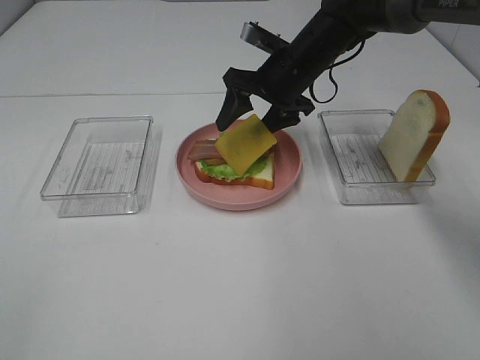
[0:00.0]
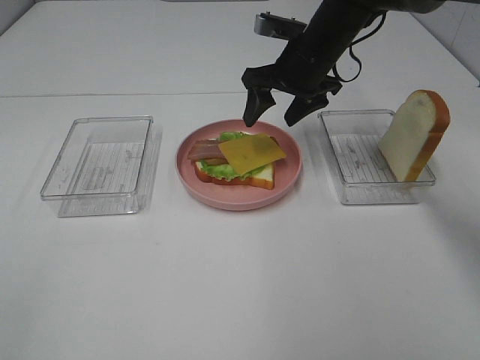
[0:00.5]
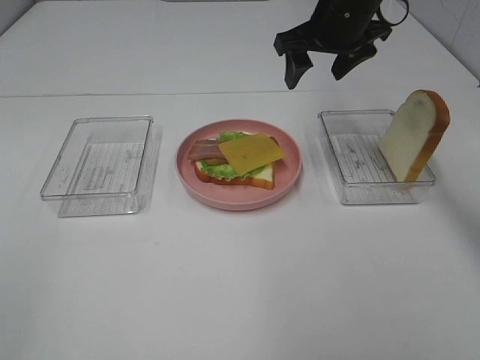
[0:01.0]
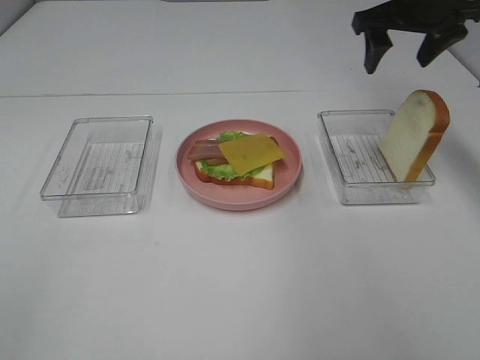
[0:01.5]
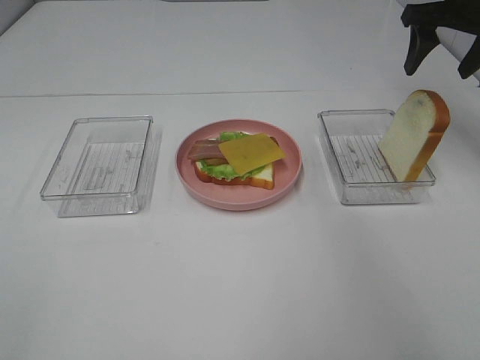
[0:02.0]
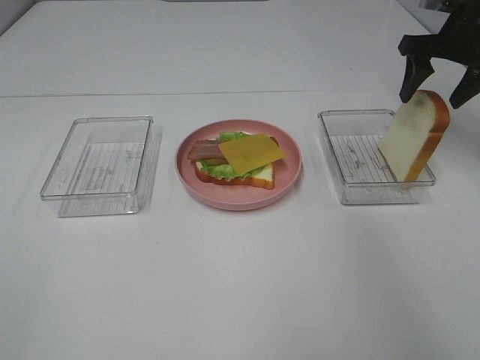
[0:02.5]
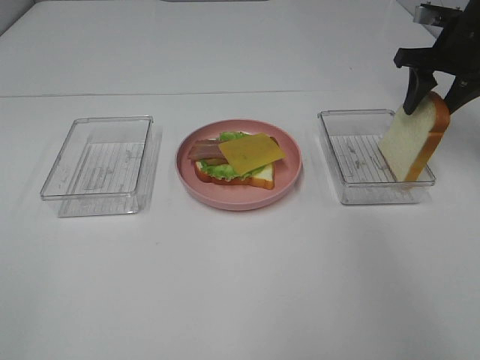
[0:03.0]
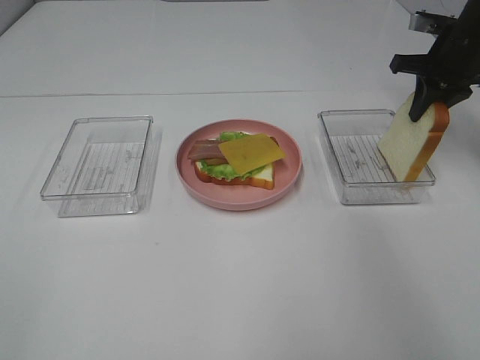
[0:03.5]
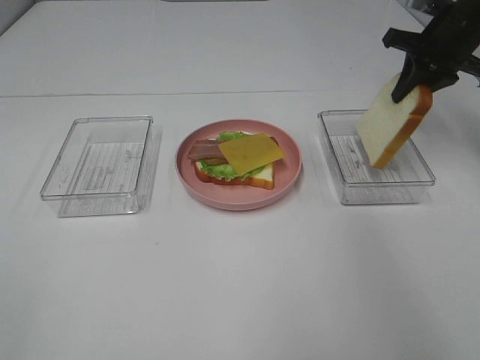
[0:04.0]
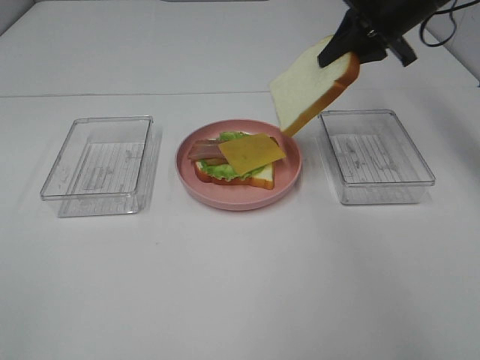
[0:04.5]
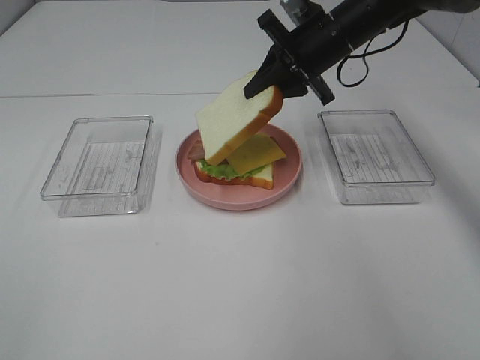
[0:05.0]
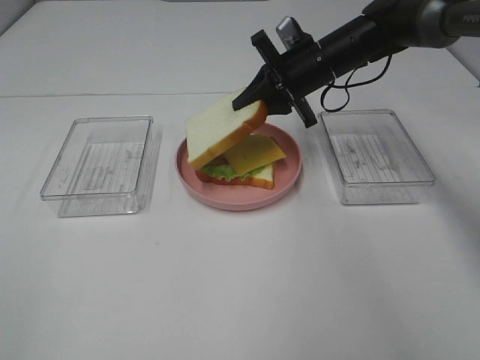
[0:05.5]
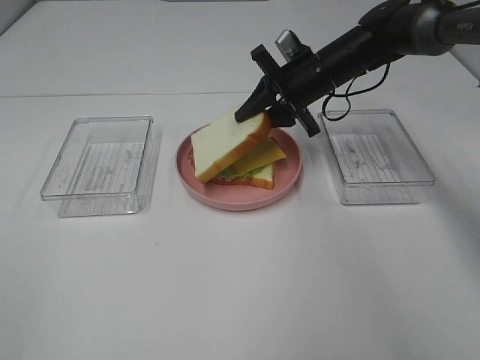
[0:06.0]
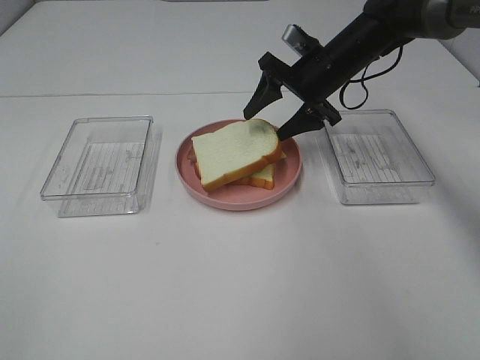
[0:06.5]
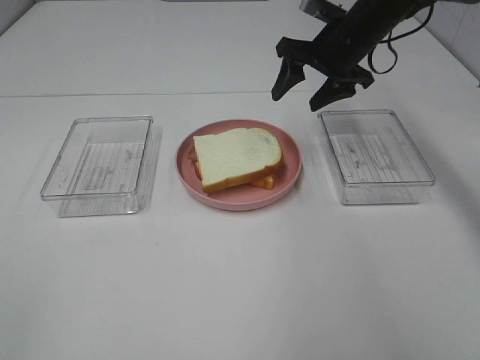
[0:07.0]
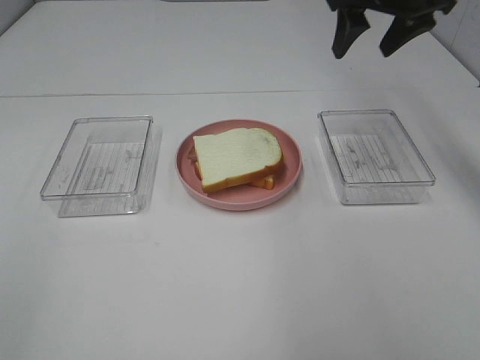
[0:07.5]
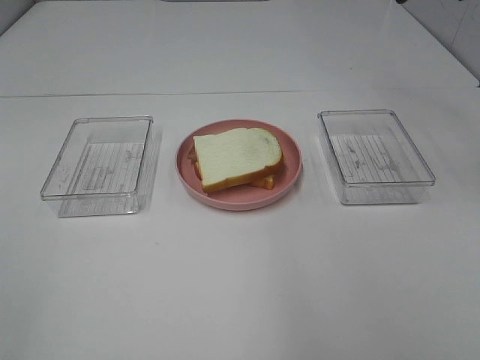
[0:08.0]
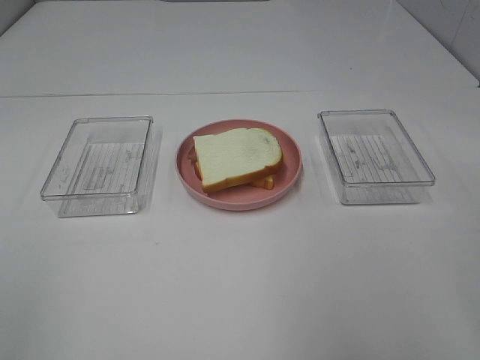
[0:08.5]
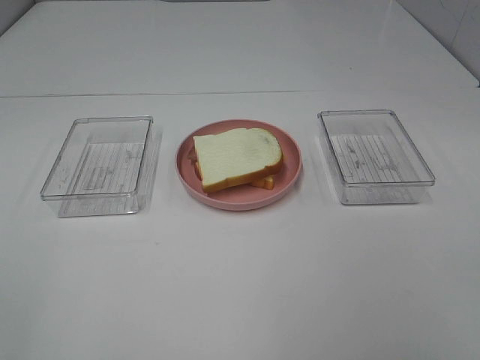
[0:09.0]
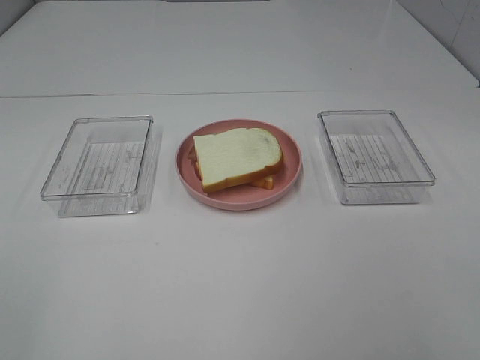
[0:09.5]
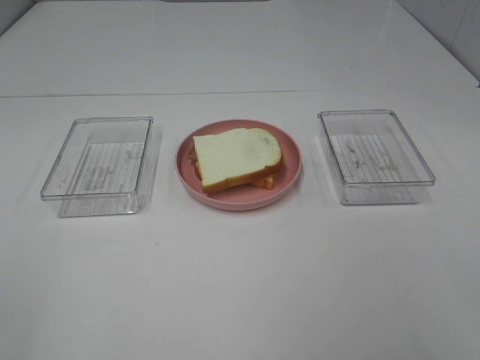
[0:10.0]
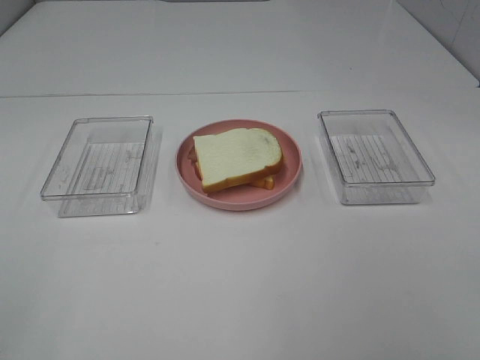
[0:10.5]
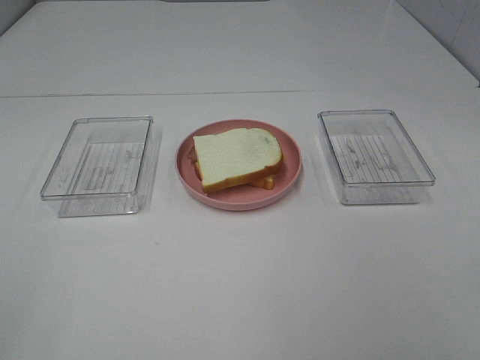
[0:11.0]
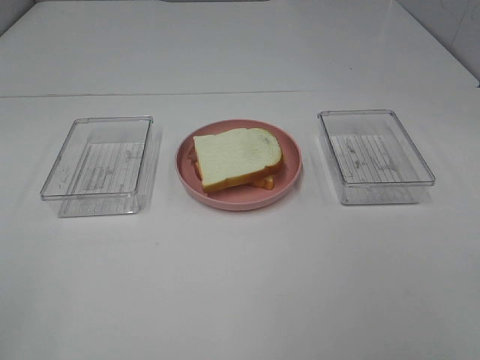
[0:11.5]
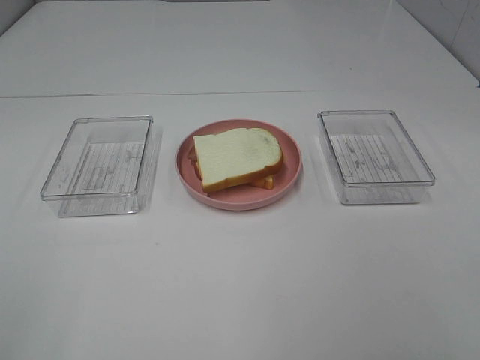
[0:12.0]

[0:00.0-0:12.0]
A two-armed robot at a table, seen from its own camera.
Task of the whole recording: Make sandwiches.
Step, 0:01.0 to 0:03.5: Right hand:grab the bread slice.
Step, 0:04.0 to 0:06.5: Right hand:place the bread slice on the cheese slice.
0:00.0 to 0:02.0: The right gripper moves to the right and upward, roughly 25 cm.
0:02.0 to 0:04.0: The right gripper closes up.
0:04.0 to 0:06.0: The right gripper travels to the left and downward by about 20 cm.
0:06.0 to 0:08.0: The right gripper travels upward and backward by roughly 30 cm, and opens up.

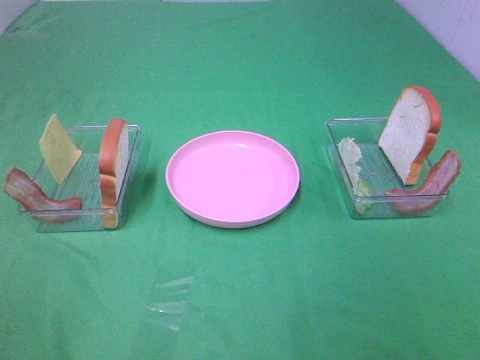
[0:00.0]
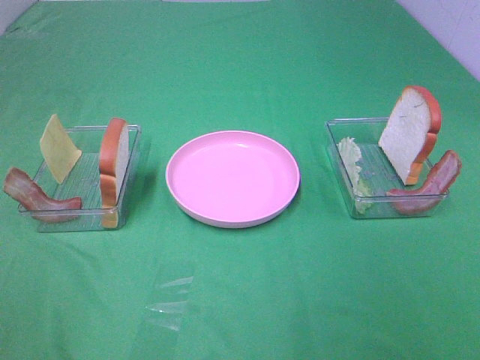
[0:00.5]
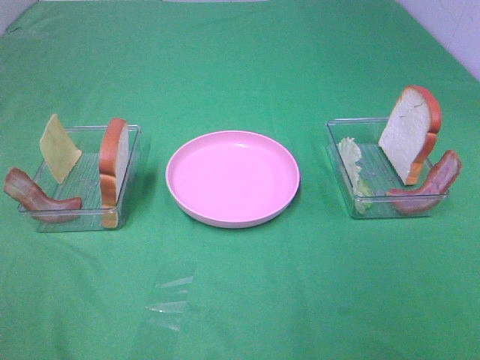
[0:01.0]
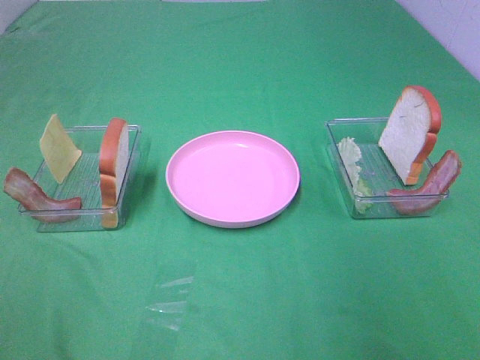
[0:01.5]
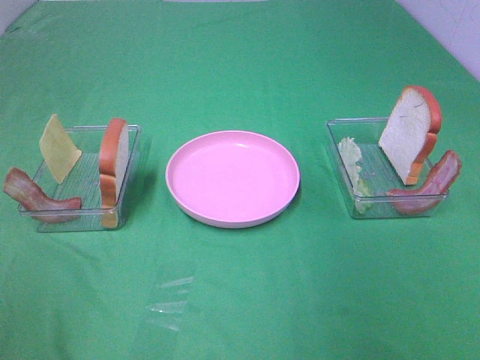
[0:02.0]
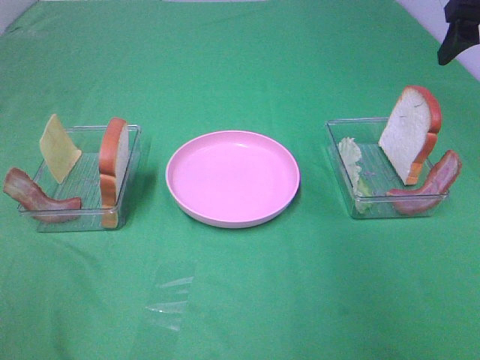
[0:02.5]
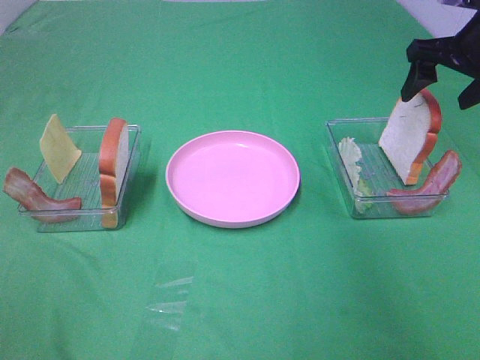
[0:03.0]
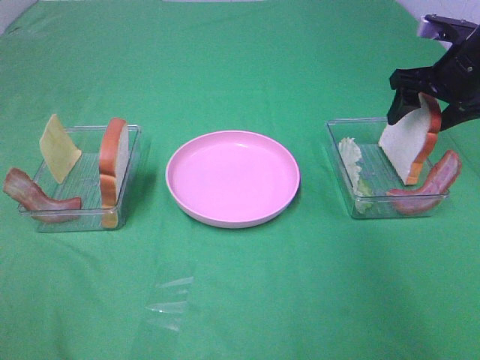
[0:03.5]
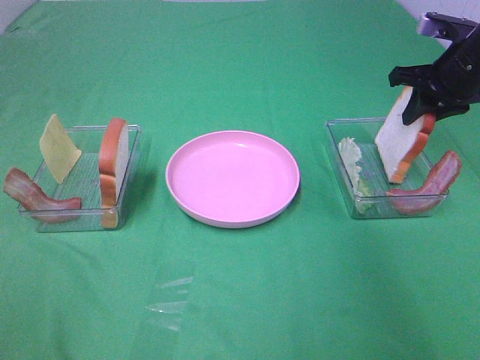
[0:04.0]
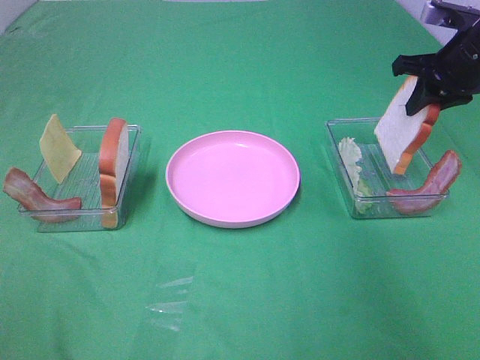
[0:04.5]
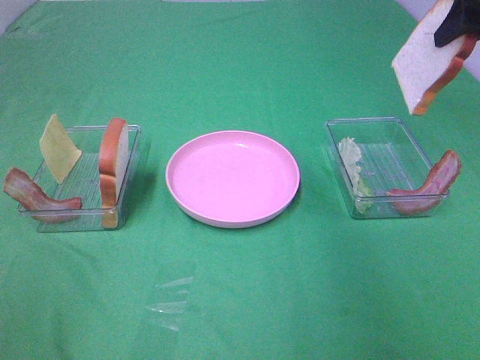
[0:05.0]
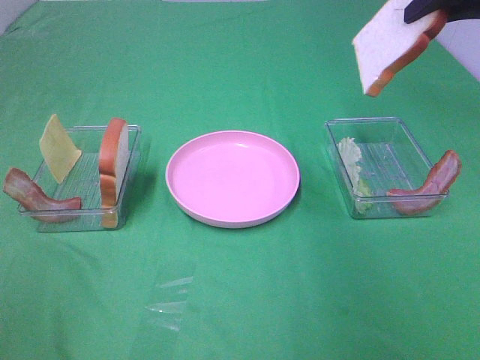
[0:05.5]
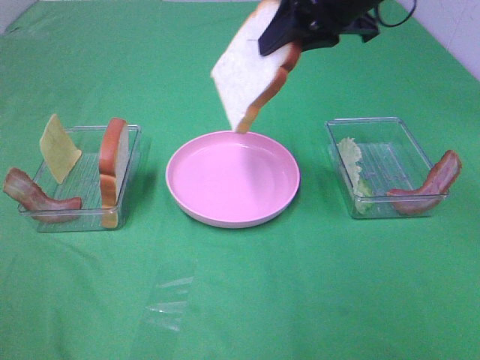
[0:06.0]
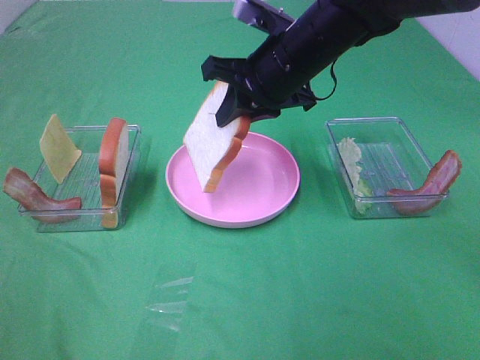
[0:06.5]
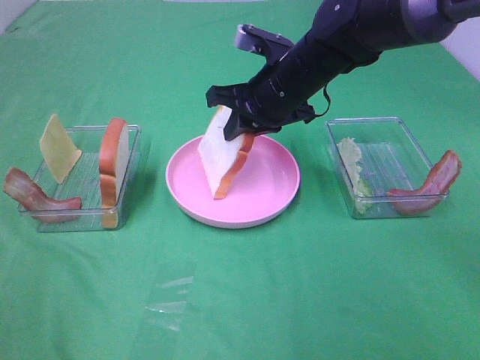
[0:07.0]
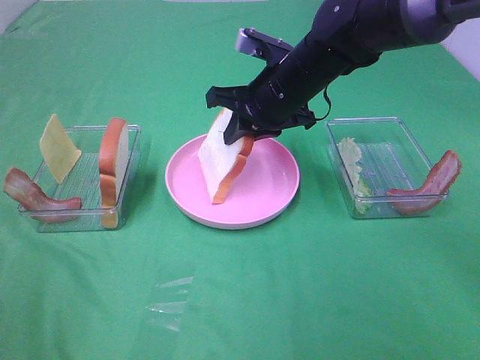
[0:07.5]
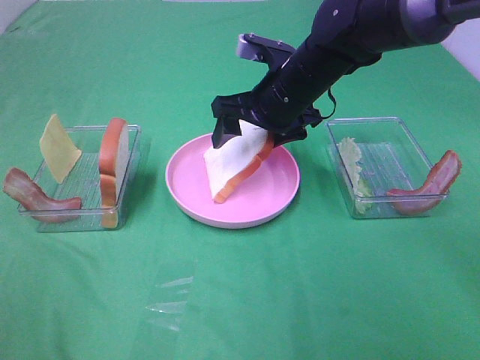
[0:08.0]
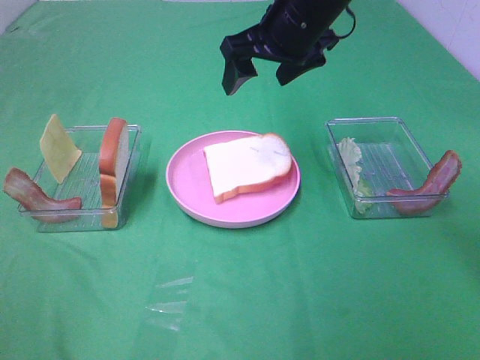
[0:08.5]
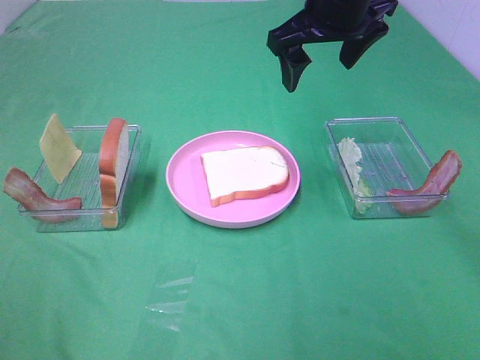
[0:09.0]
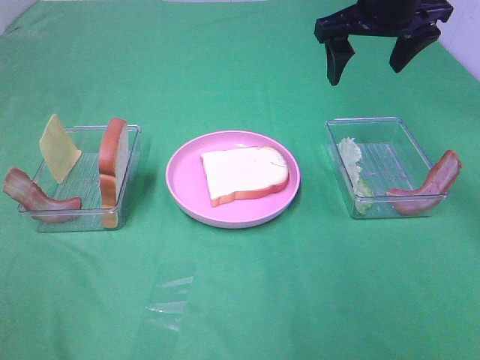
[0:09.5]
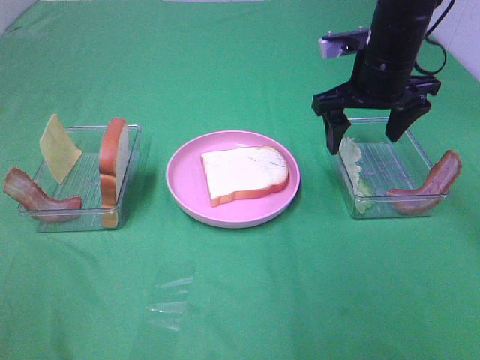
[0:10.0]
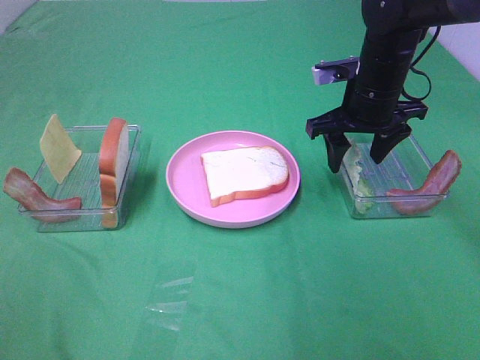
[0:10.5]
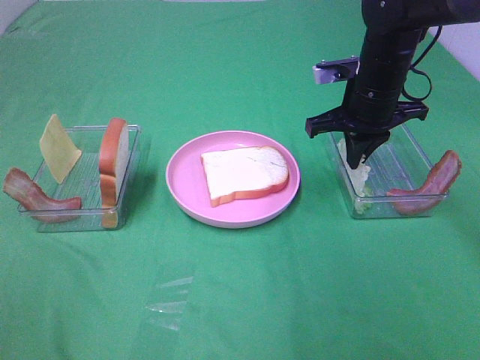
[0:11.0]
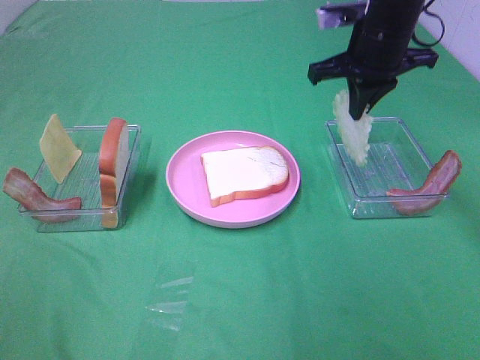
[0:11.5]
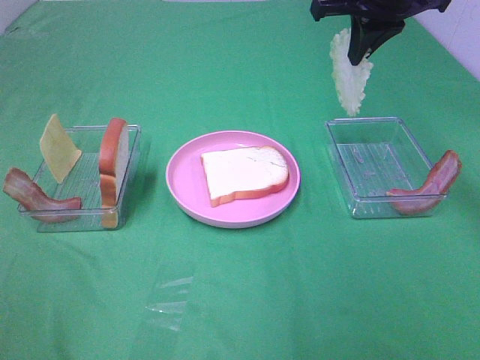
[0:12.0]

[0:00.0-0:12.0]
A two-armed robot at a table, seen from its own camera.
Task of the whole recording: Make sandwiches.
Step, 0:00.0 to 0:04.0: Right hand:grab the bread slice.
Step, 0:04.5 to 0:08.5: Right hand:place the bread slice on the plate.
Step, 0:09.0 to 0:11.0: Right hand:grab the lettuce slice.
0:02.0 to 0:04.0: The right gripper shifts some 20 cm forward and downward, and closes.
0:04.0 to 0:06.0: The right gripper travels to the left and upward by roughly 20 cm.
0:06.0 to 0:08.0: The right gripper moves downward, about 15 cm, and opens up.
0:08.0 to 0:10.0: The right gripper travels to the right by roughly 10 cm, and travels upward and back again, roughly 10 cm each way.
0:10.0 to 0:12.0: The right gripper goes about 10 cm upward, and closes its fingers.

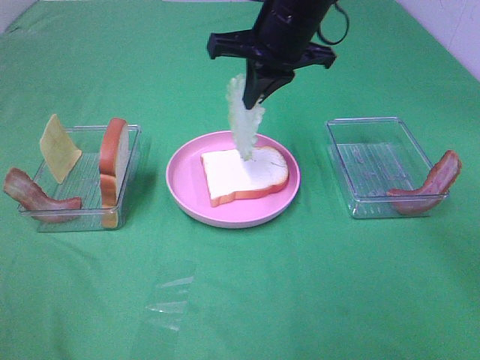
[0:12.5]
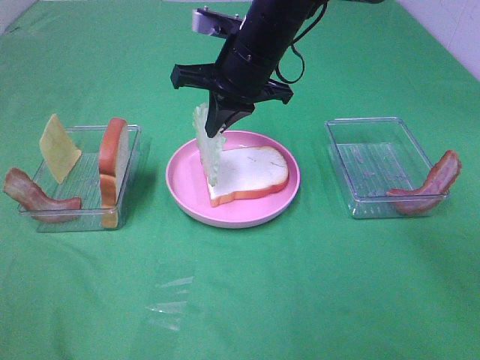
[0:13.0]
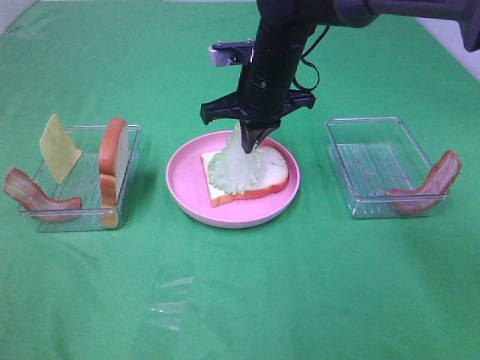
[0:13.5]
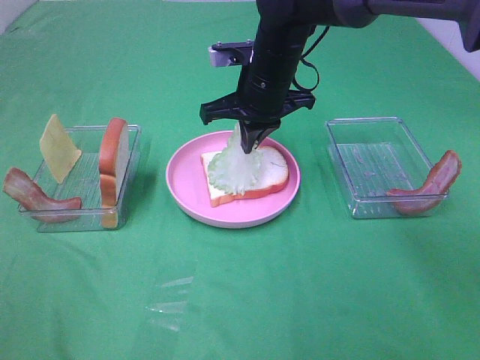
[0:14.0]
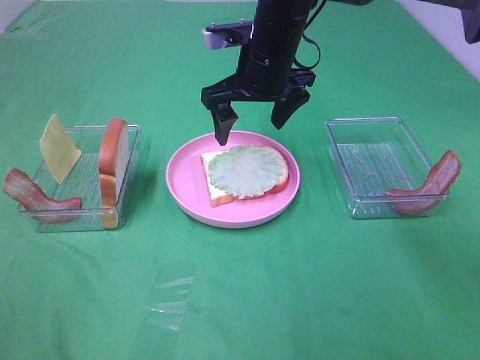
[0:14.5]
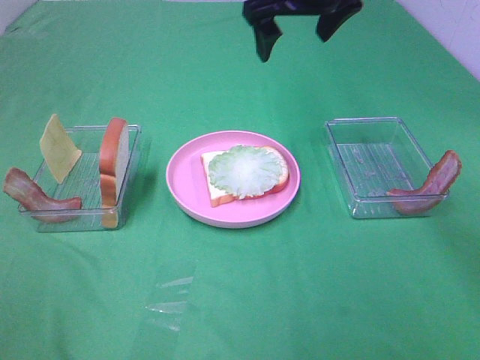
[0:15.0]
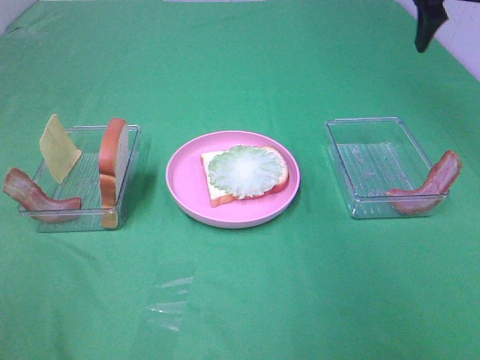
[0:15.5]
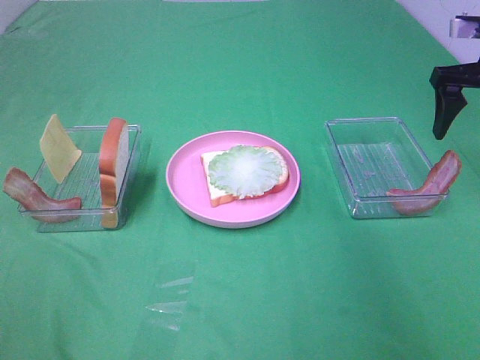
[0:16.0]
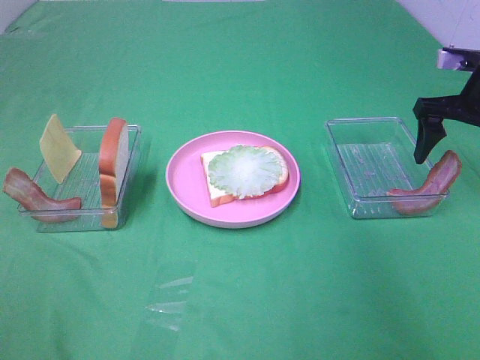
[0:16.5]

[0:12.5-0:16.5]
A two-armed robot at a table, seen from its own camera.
Task of the whole recording: Make sandwiches.
0:12.5 to 0:14.5: The right gripper opens its fingers.
0:14.5 to 0:16.5: The right gripper travels to the right by about 25 cm.
